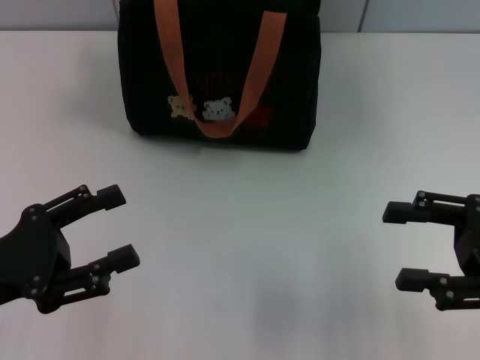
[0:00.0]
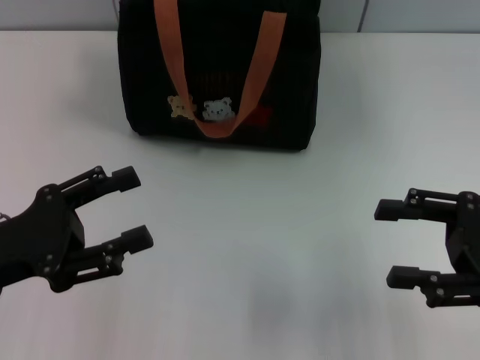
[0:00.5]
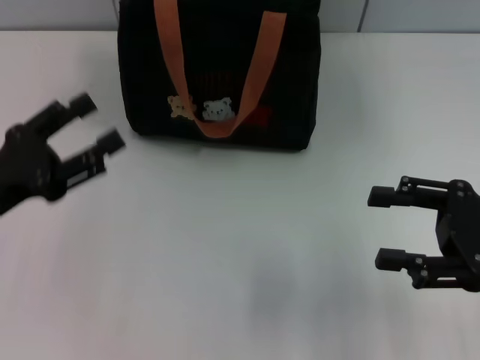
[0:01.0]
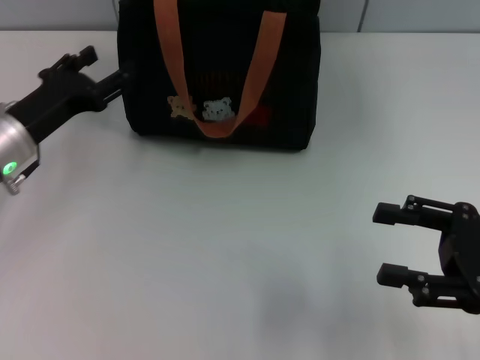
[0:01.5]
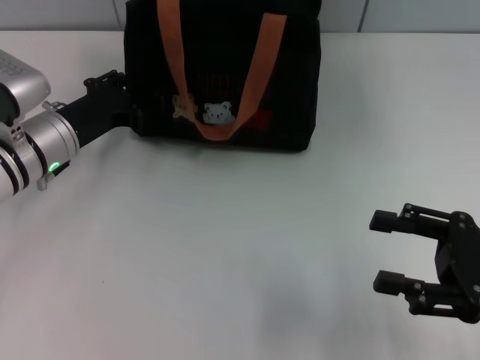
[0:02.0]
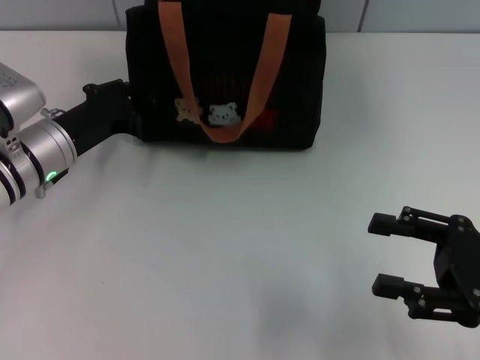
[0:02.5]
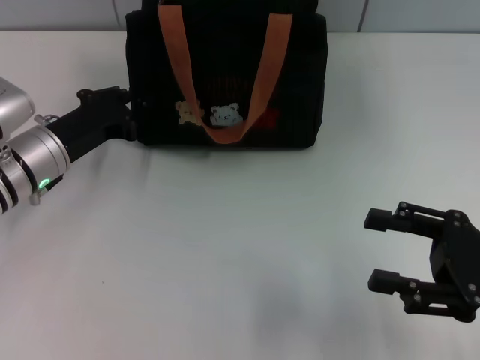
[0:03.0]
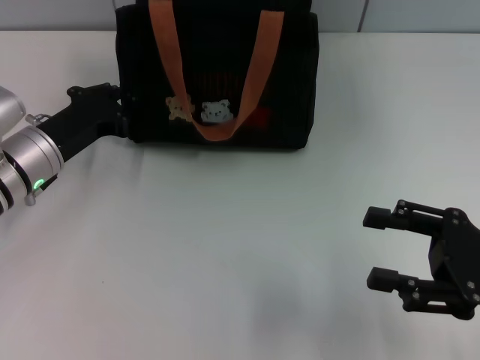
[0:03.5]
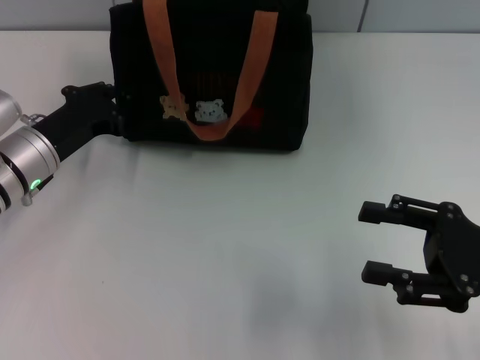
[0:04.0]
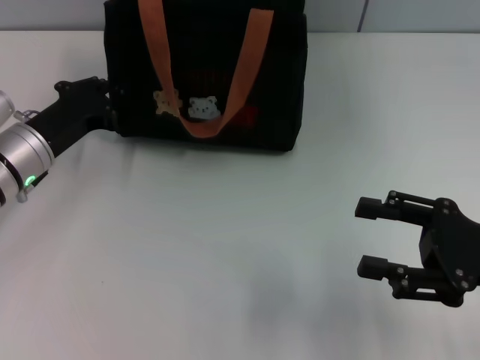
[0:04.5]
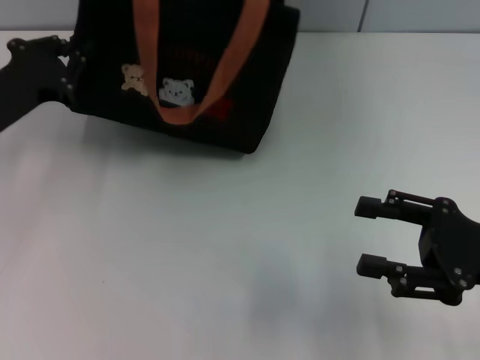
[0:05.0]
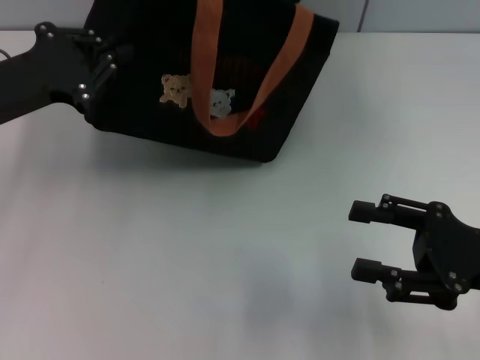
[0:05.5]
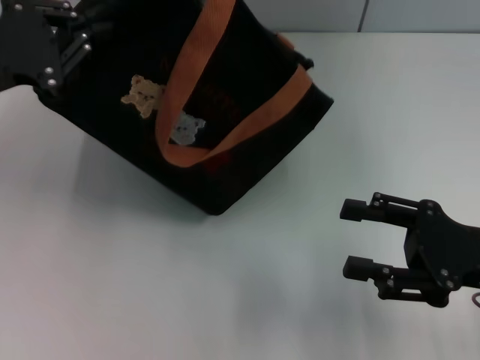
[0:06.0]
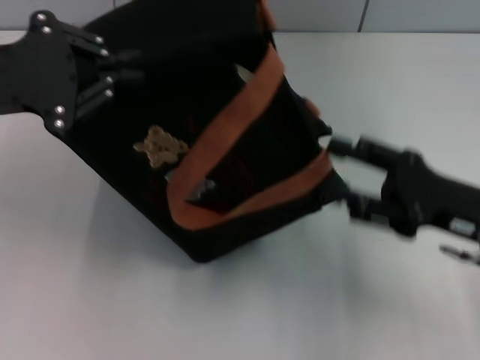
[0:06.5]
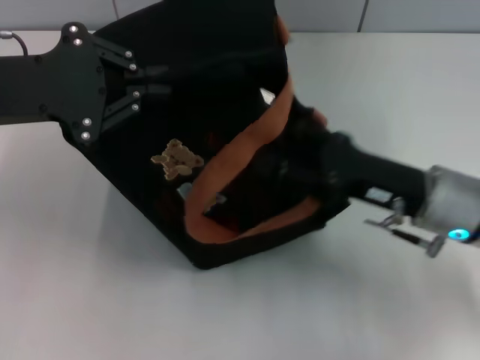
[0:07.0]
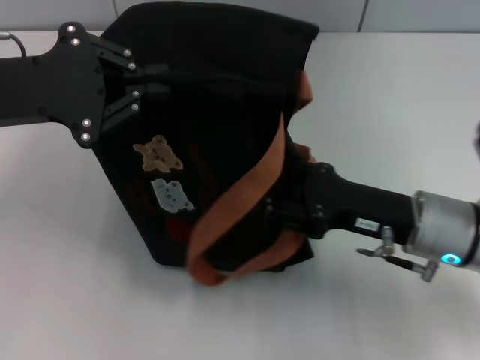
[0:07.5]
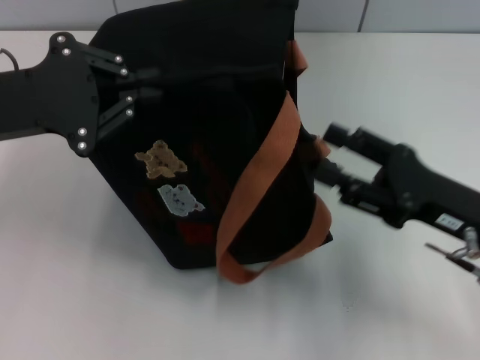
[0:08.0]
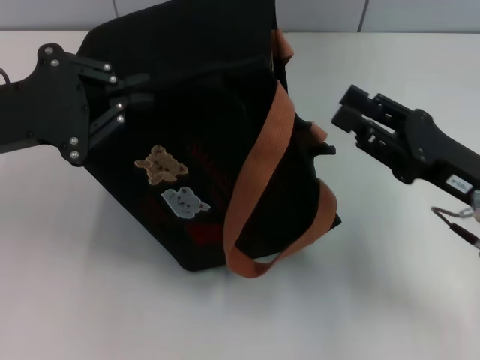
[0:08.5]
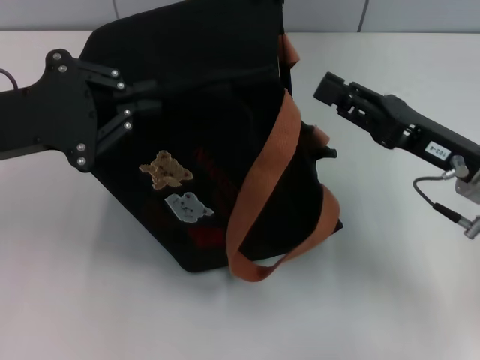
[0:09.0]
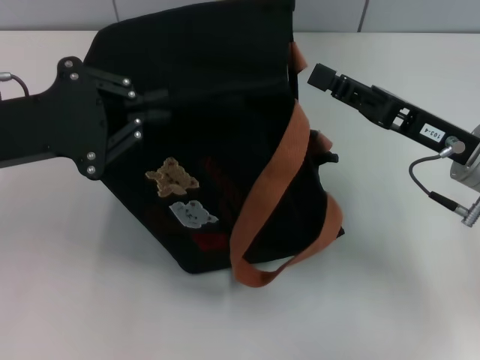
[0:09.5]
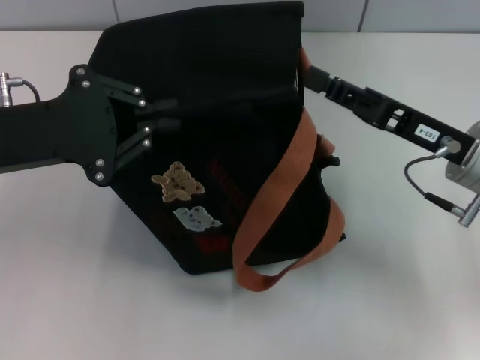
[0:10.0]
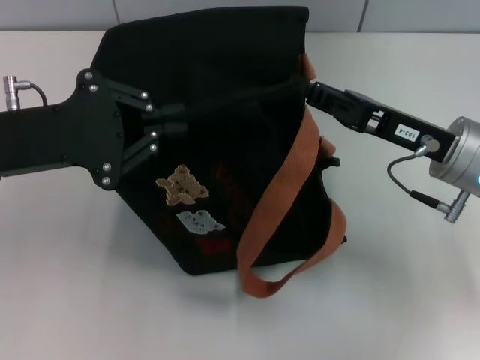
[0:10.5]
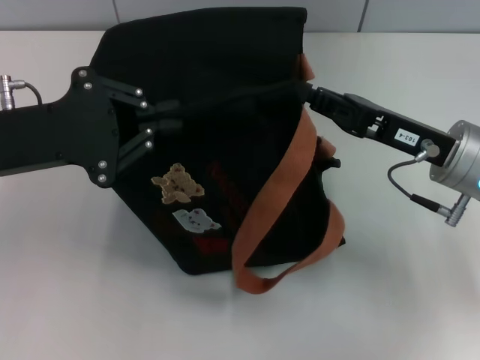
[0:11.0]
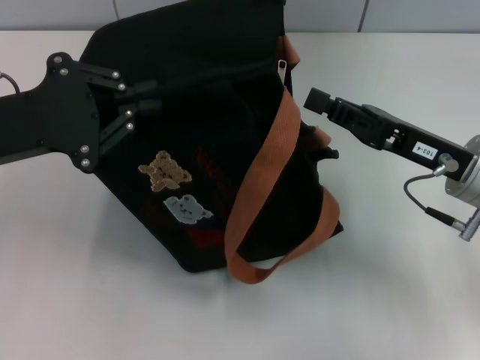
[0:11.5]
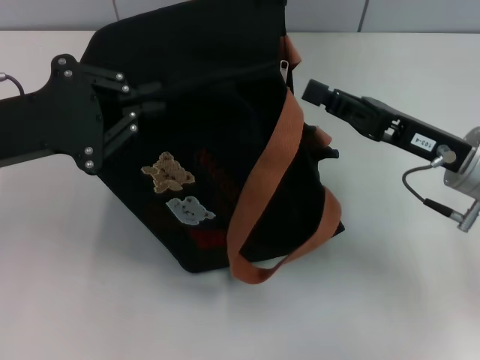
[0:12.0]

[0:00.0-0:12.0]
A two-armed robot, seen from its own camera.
0:00.0 to 0:02.0: The left gripper goes some 15 cm forward.
0:02.0 to 0:04.0: The left gripper closes.
0:04.0 to 0:06.0: The left gripper is displaced upward by some 15 cm.
0:08.0 to 0:10.0: The right gripper is displaced forward by about 5 cm.
0:10.0 to 0:12.0: The right gripper closes its fingers.

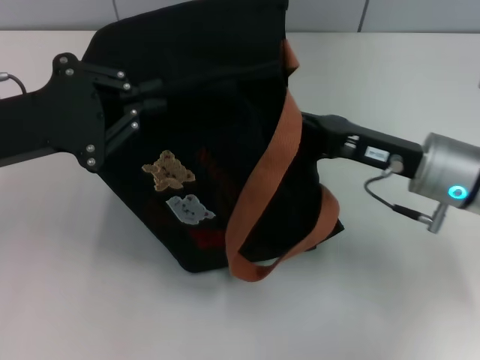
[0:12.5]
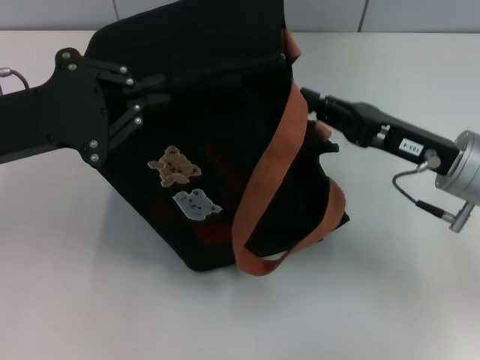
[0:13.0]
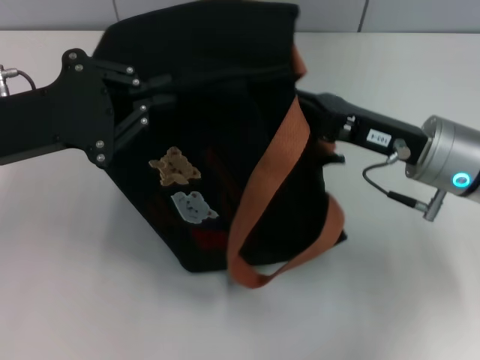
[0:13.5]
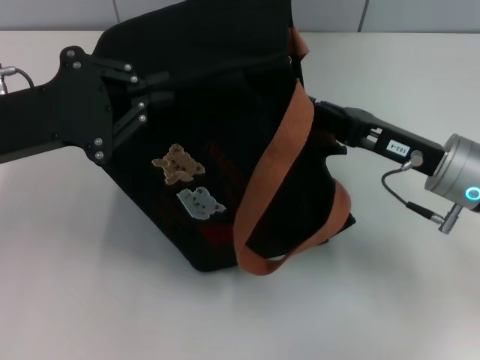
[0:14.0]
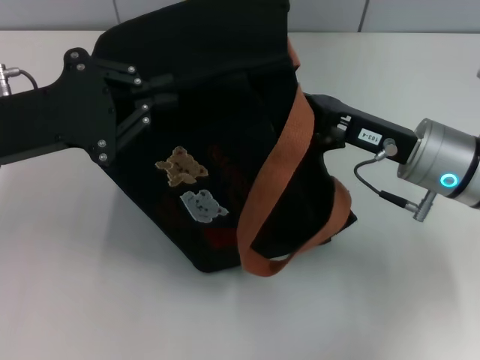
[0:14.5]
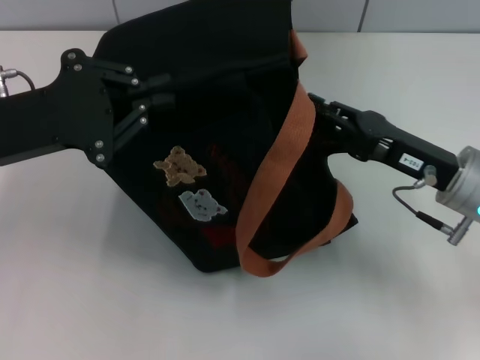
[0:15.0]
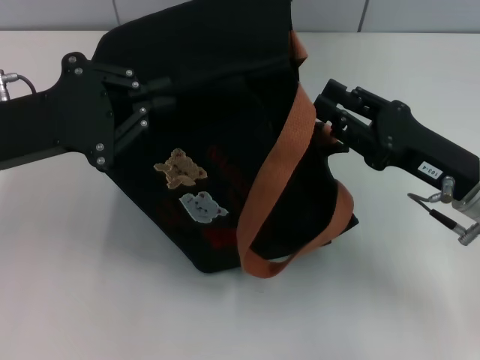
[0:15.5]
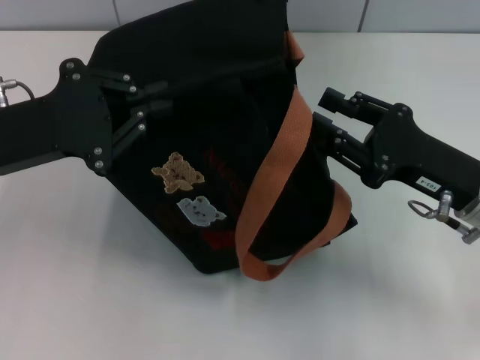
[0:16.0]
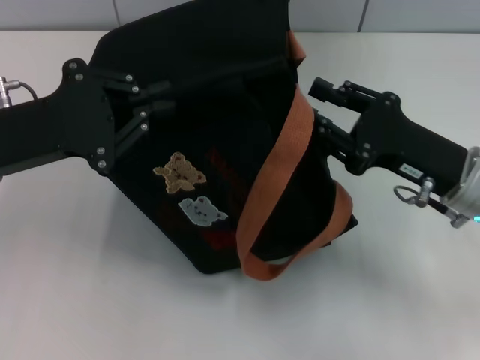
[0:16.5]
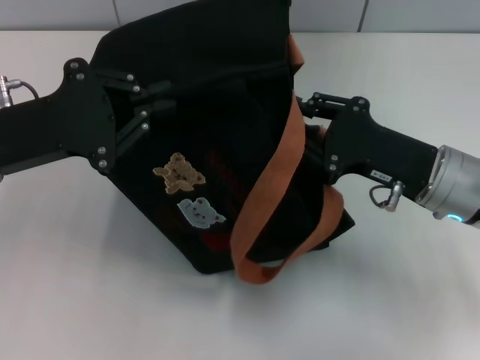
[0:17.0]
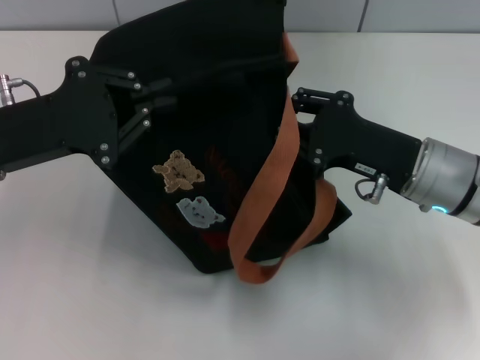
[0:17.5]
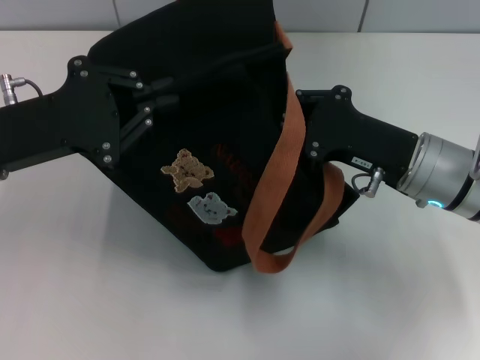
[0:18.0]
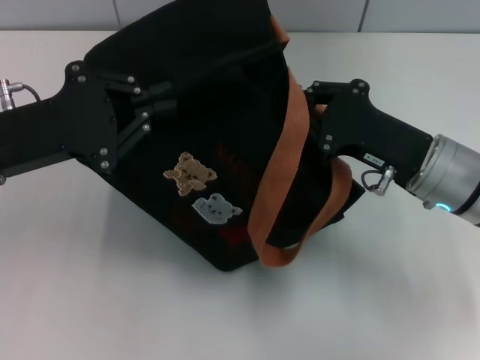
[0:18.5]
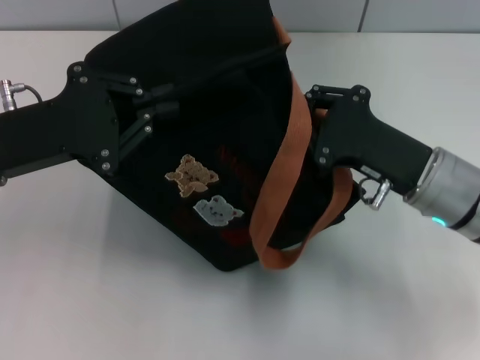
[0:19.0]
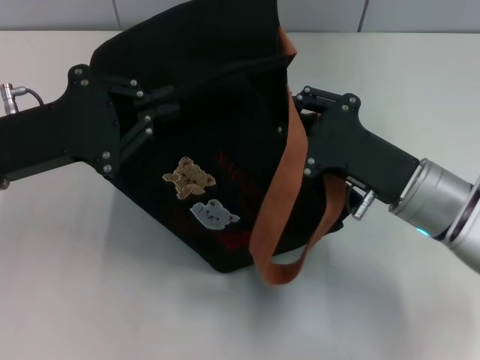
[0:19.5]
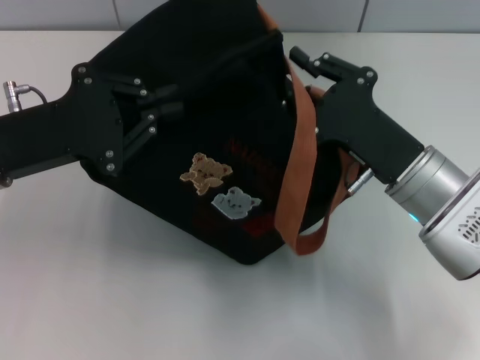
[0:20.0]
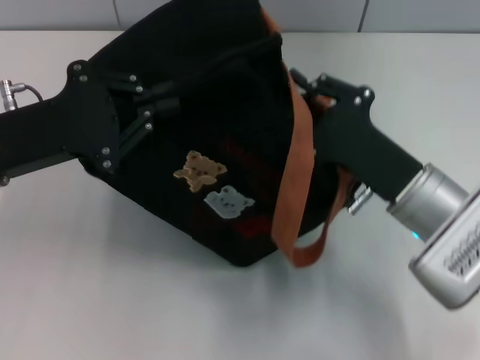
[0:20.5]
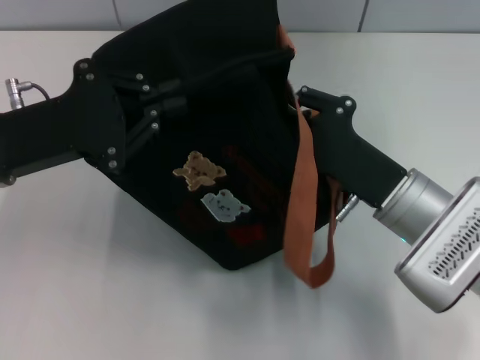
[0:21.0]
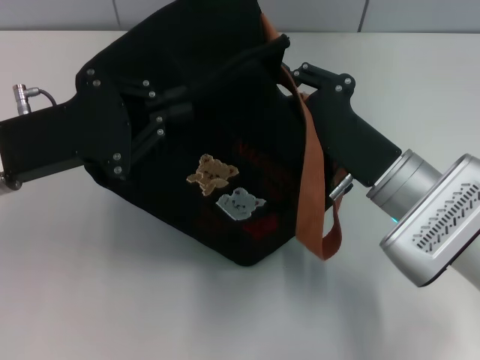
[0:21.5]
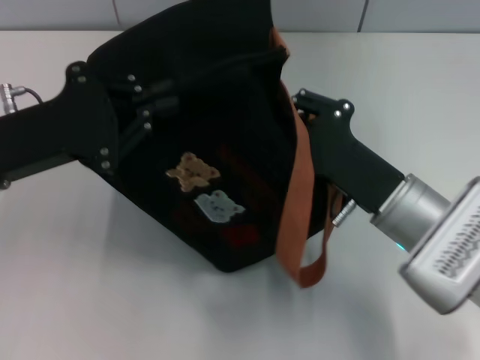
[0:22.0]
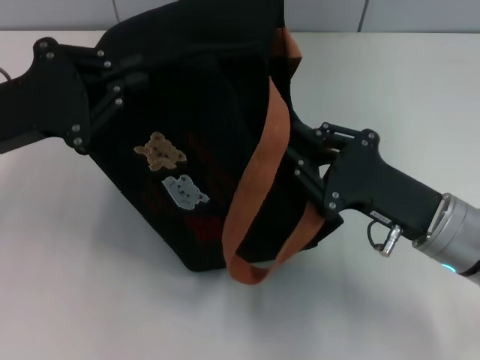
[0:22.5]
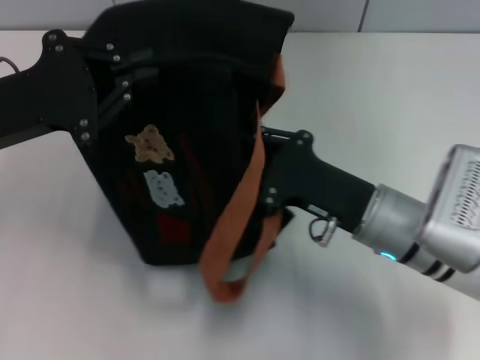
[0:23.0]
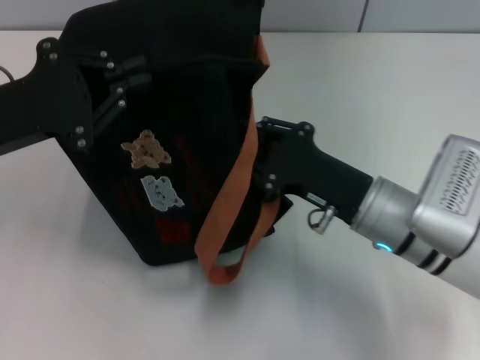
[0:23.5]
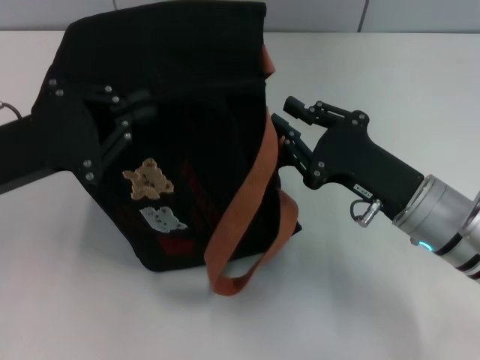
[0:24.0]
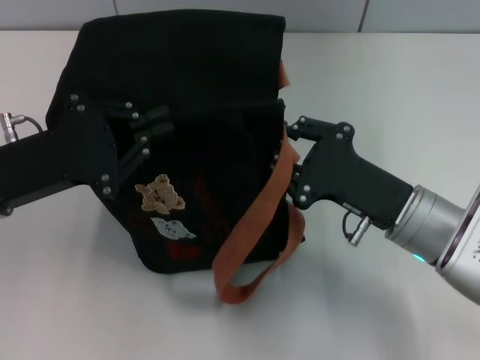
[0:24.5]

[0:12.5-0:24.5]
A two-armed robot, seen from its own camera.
0:12.5 to 0:14.5: The grippers move only a little.
0:14.5 to 0:16.5: The right gripper opens.
0:16.5 to 0:18.5: The right gripper closes its fingers.

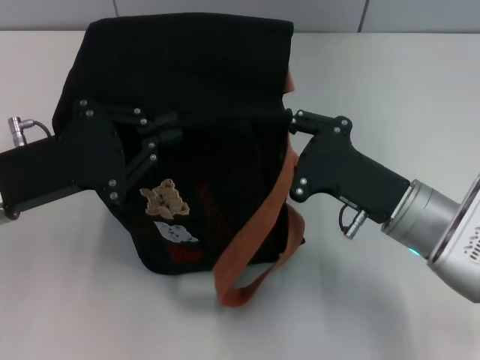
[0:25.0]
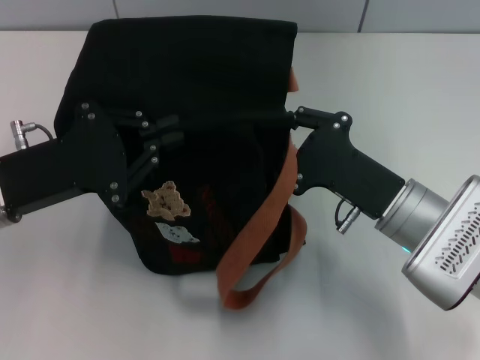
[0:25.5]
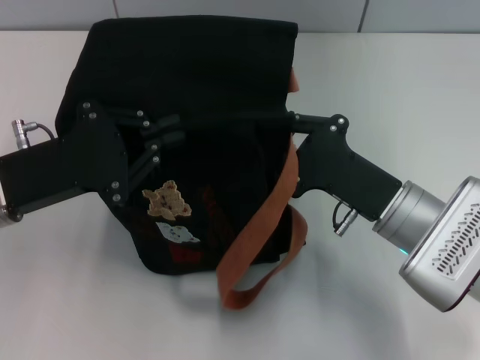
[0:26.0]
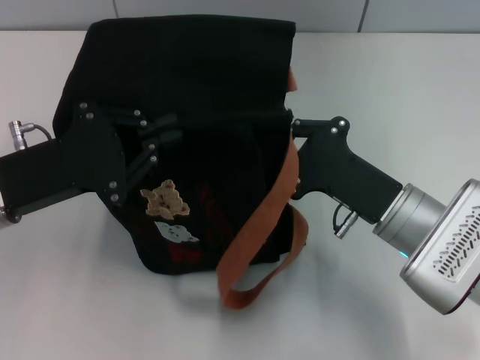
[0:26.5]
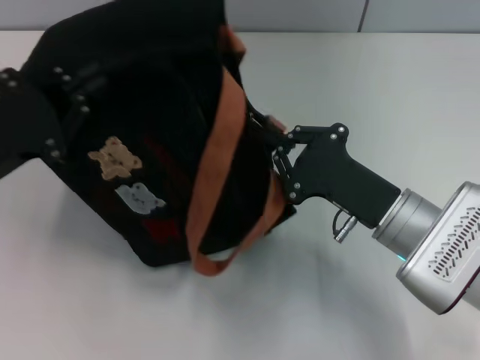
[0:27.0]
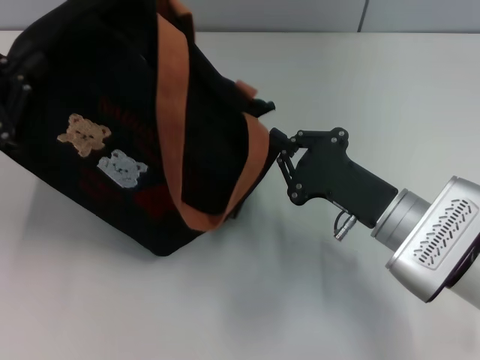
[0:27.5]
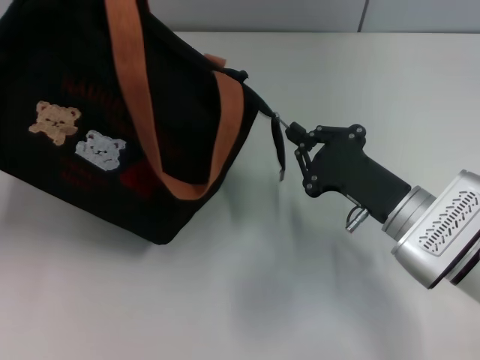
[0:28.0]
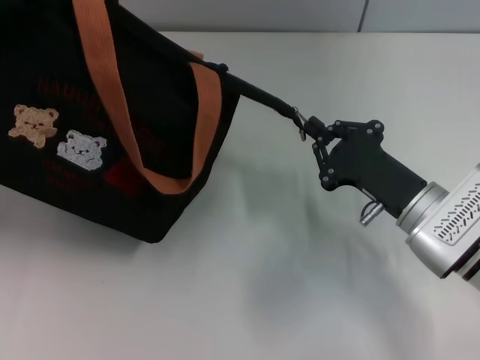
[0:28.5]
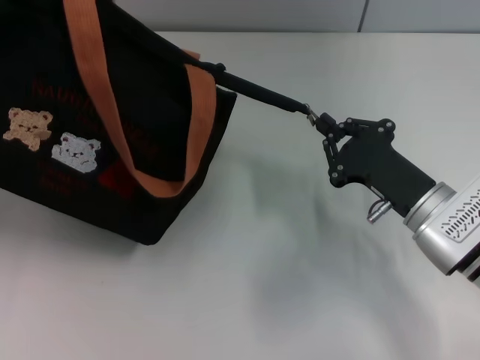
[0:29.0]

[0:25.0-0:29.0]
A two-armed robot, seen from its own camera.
0:25.0 to 0:27.0: The right gripper closes.
0:27.0 to 0:29.0: The left gripper is displaced to the left by about 5 cm.
